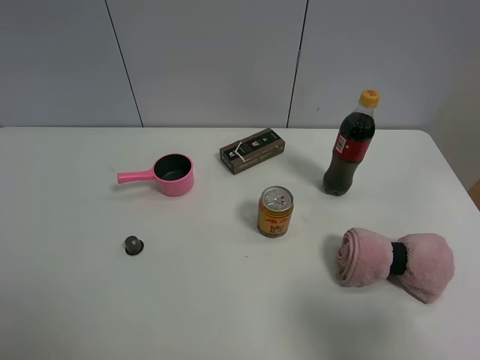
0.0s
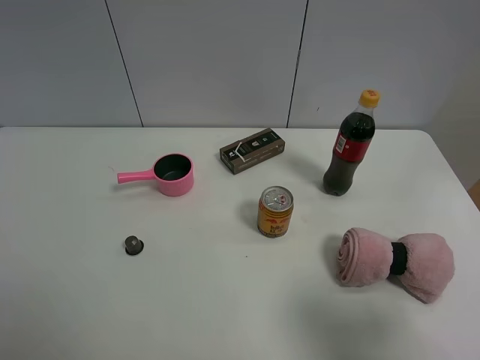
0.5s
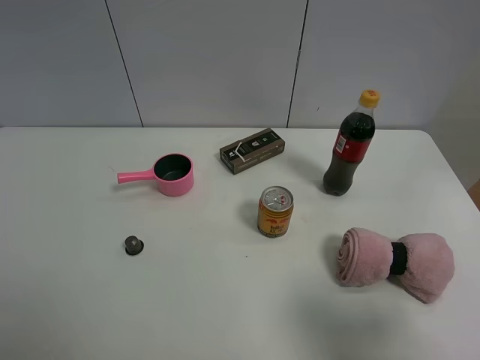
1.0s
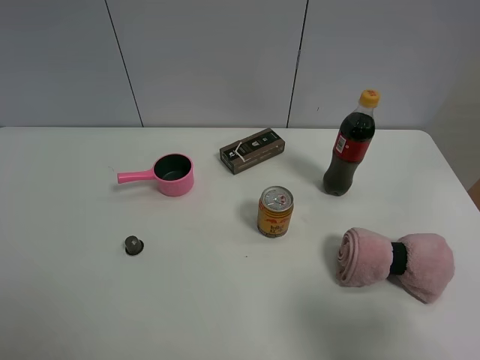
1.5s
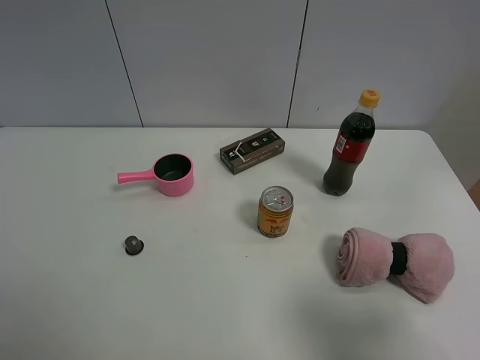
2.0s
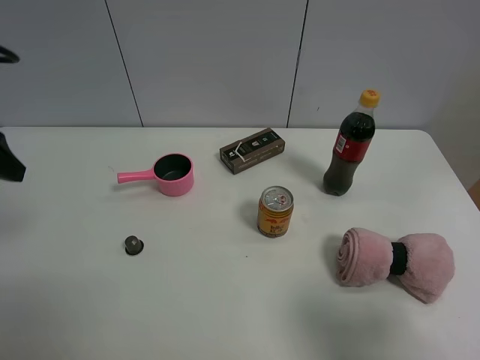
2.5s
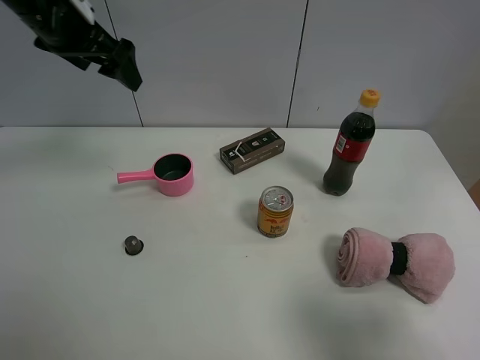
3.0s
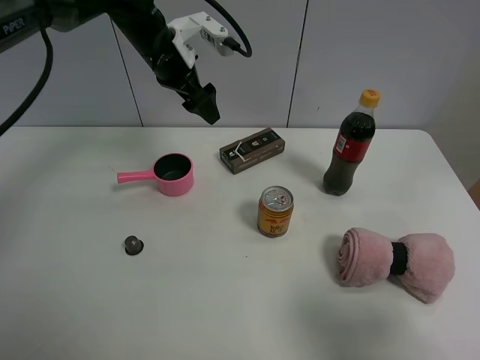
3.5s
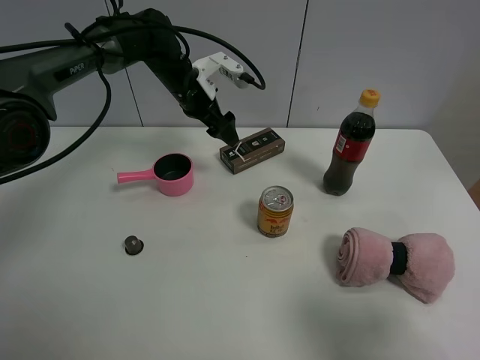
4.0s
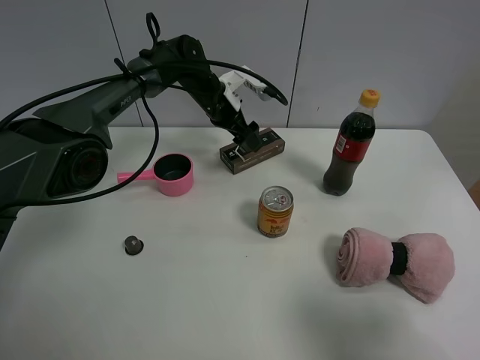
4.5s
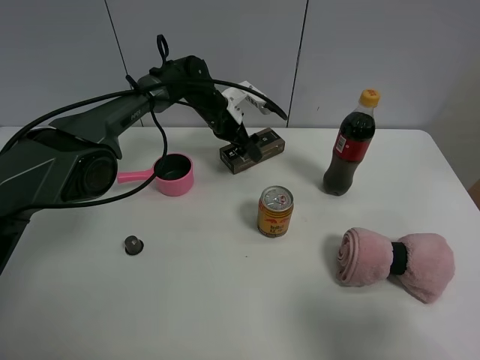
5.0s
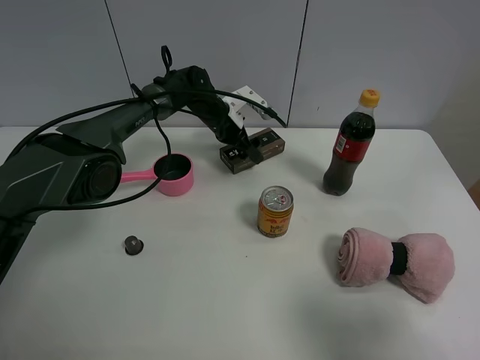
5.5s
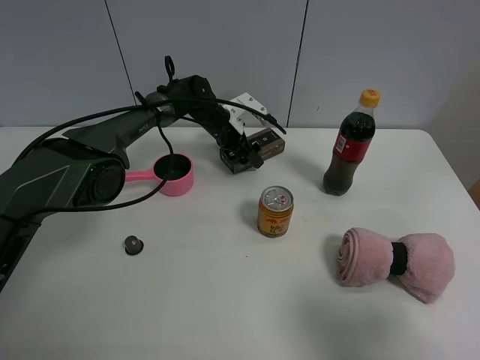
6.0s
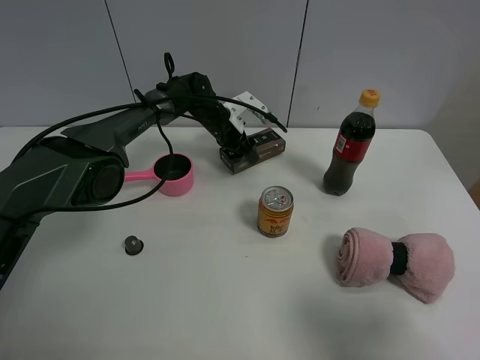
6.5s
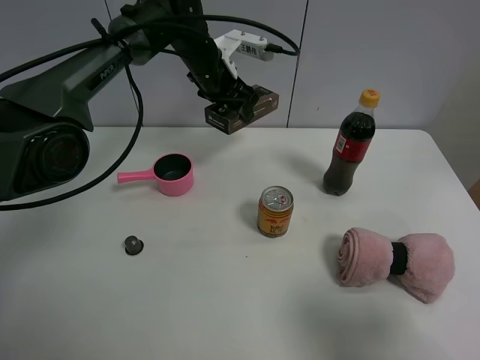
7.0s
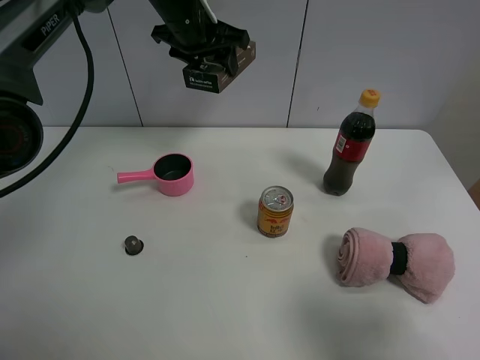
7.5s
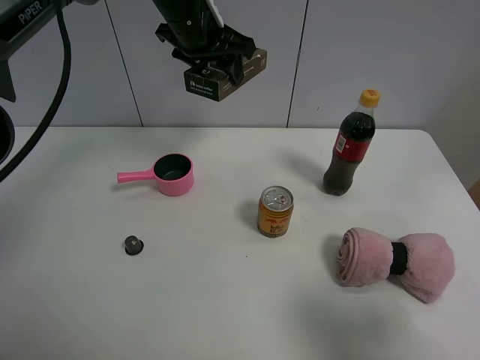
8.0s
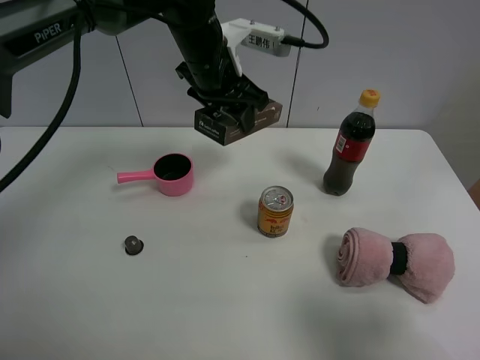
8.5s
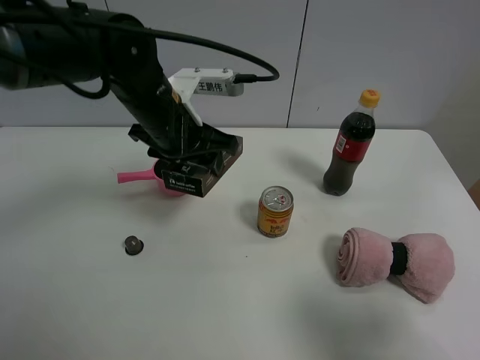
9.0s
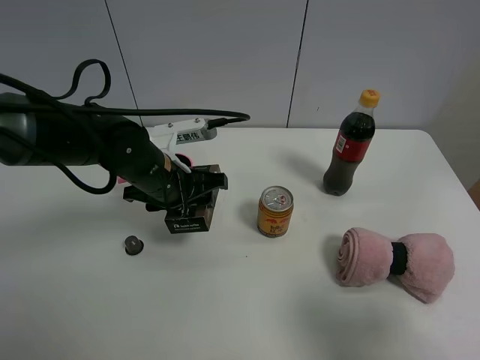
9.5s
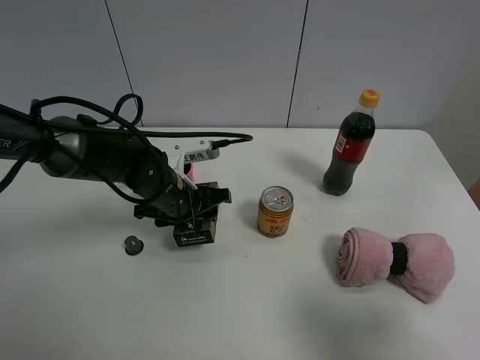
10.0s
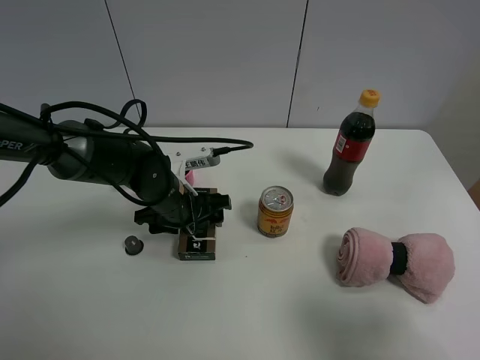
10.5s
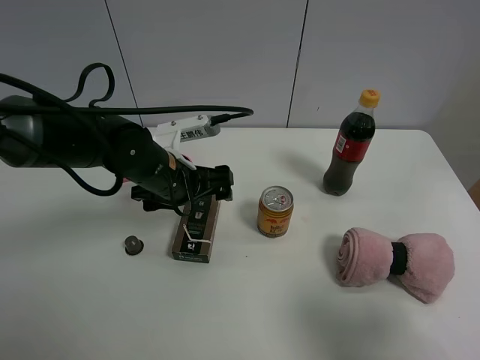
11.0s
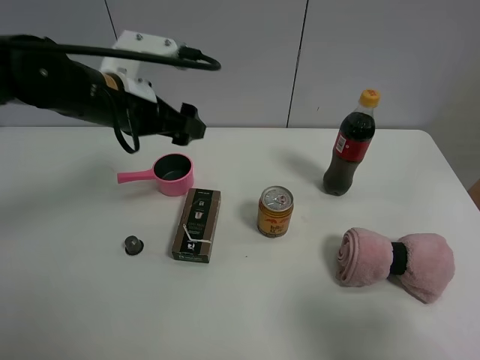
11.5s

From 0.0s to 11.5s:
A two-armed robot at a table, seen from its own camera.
Task of the whole recording: the gripper move the object.
Step, from 0.0s to 6.0s: Grasp the brown box with the left gripper.
Step, from 6.5s to 10.5s: Place the brown box on the table with the left gripper.
From 2.0s to 4.0s: The left gripper goes approximately 50 cm forward and to the right.
From 4.0s to 6.0s: The left gripper shifts some 10 cm downward.
From 6.0s to 7.5s: The left gripper heads upward, covering roughly 25 cm, and closes its fingers.
From 7.5s to 9.5s: The left gripper moves backward and downward, about 25 cm.
From 9.5s to 11.5s: The left gripper shifts approximately 10 cm upward, and opens its fingers.

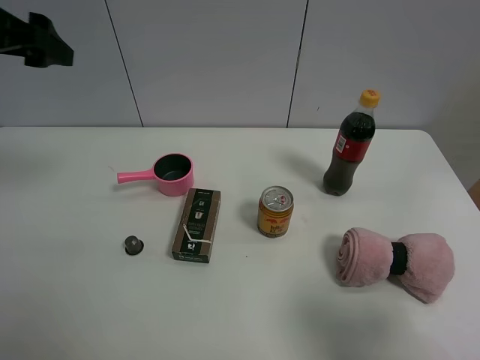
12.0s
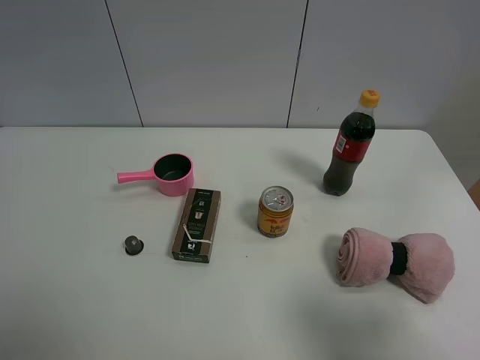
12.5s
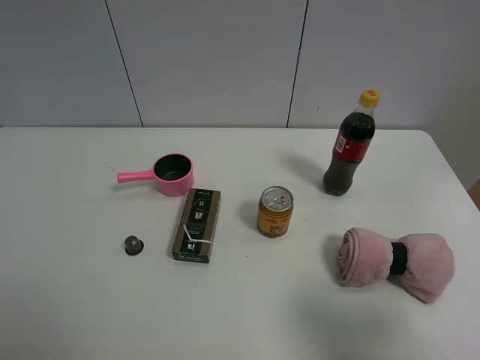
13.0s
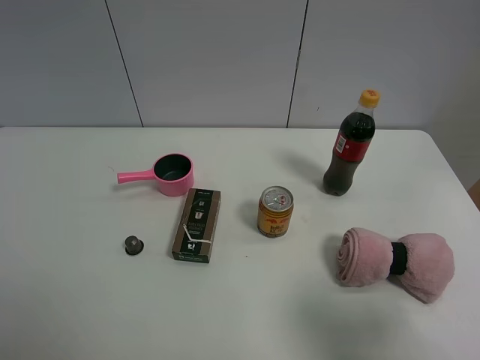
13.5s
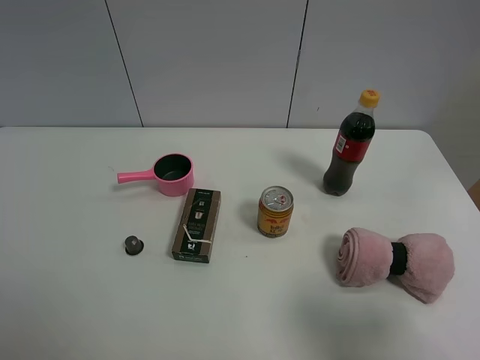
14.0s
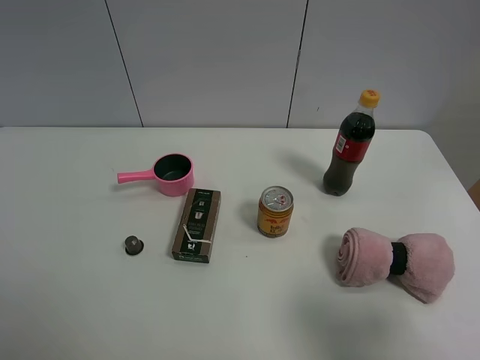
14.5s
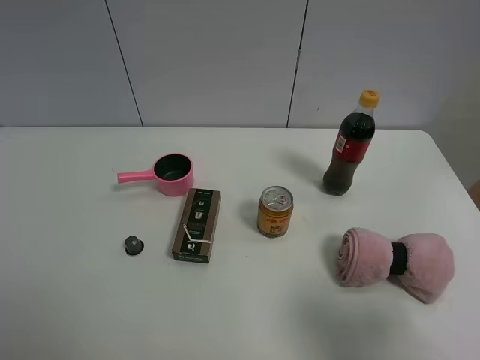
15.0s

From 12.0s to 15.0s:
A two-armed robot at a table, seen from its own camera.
Task of the whole recording: the gripper move the object.
From 12.0s to 13.5s: The left gripper is displaced backward by some 30 cm.

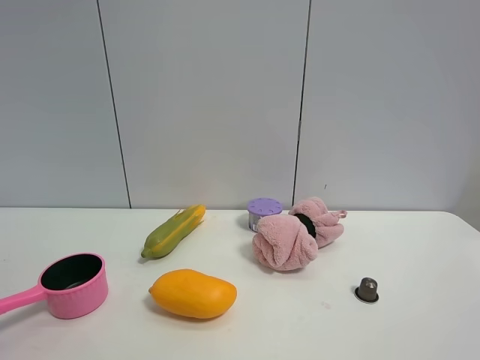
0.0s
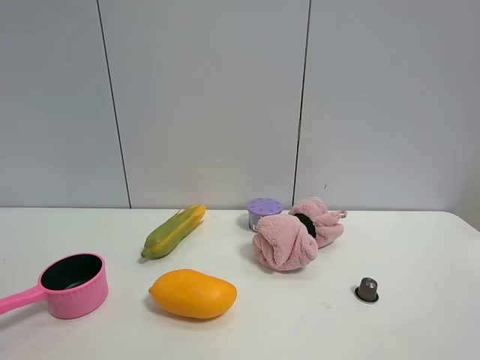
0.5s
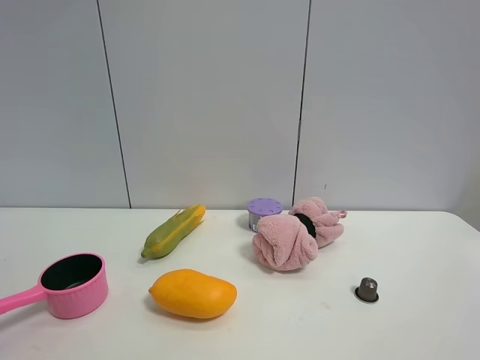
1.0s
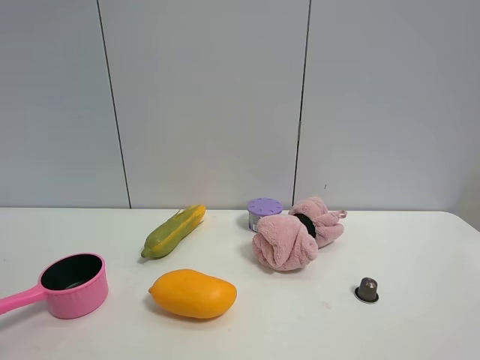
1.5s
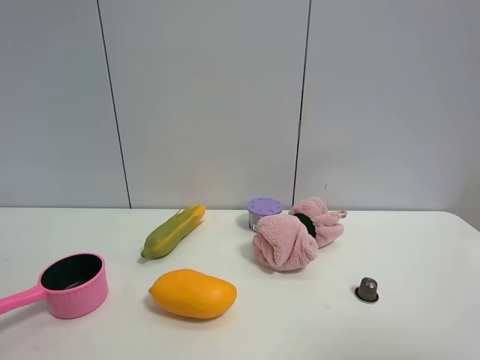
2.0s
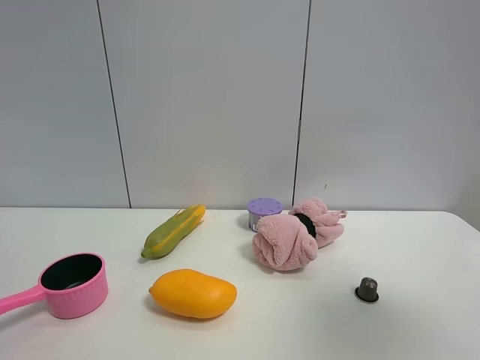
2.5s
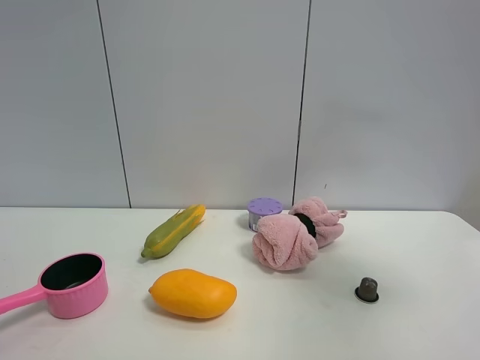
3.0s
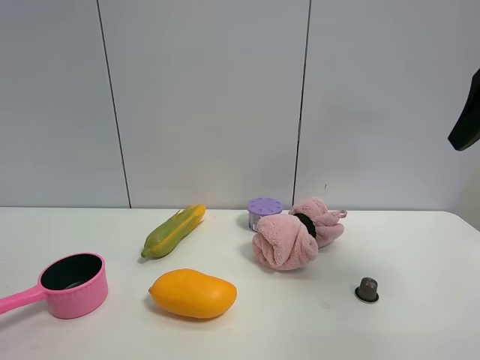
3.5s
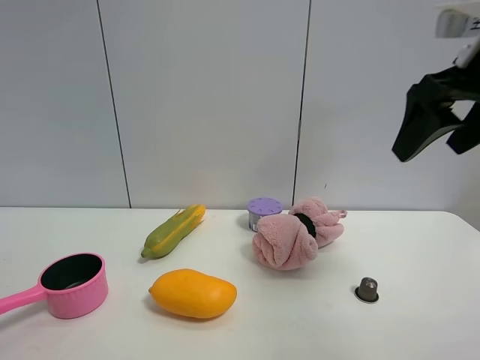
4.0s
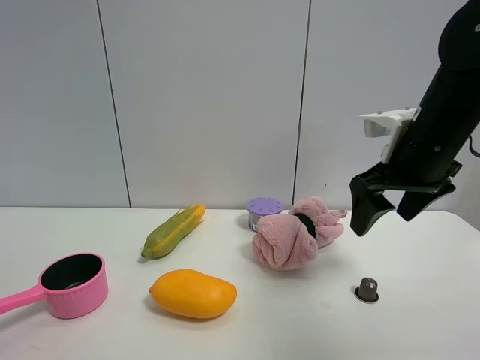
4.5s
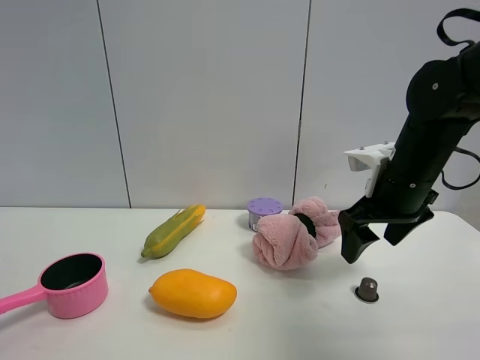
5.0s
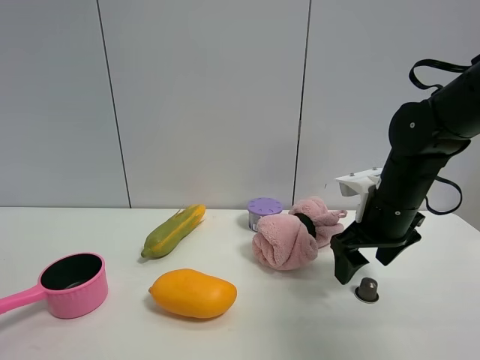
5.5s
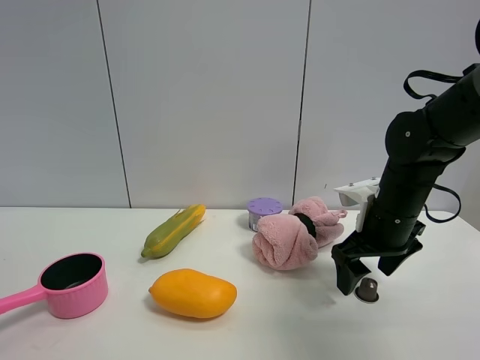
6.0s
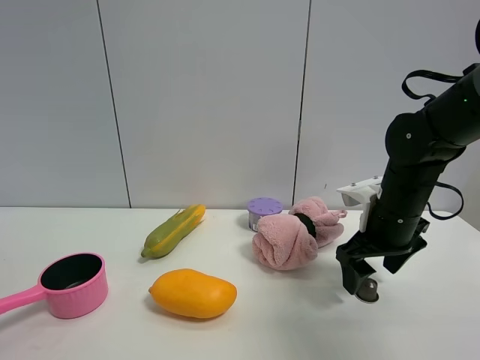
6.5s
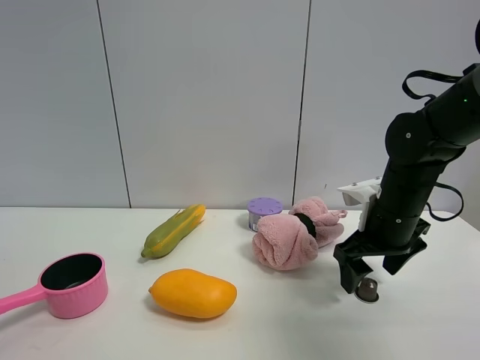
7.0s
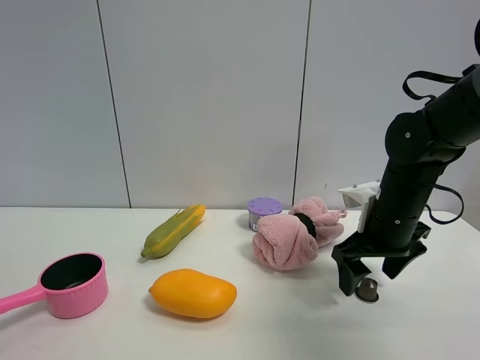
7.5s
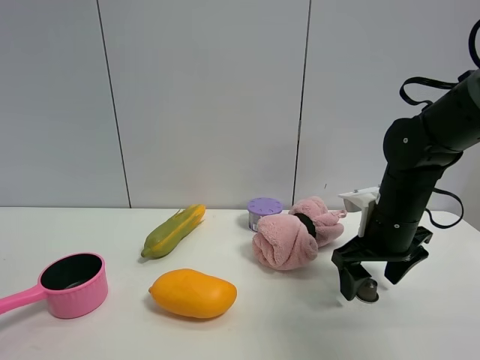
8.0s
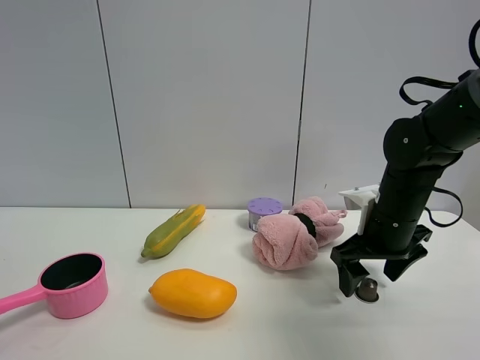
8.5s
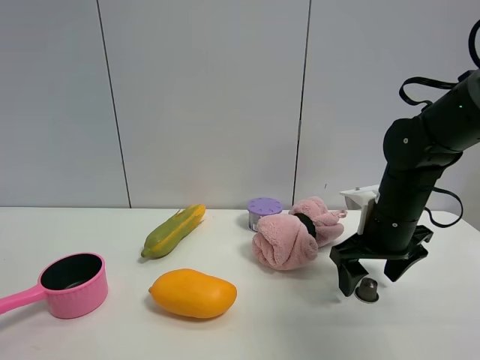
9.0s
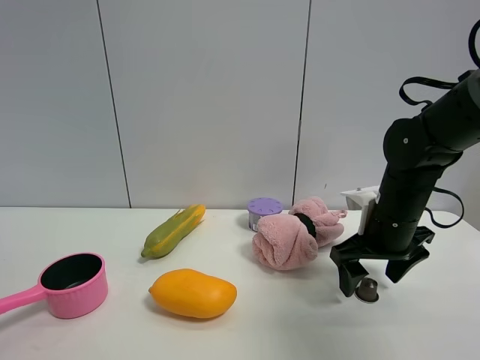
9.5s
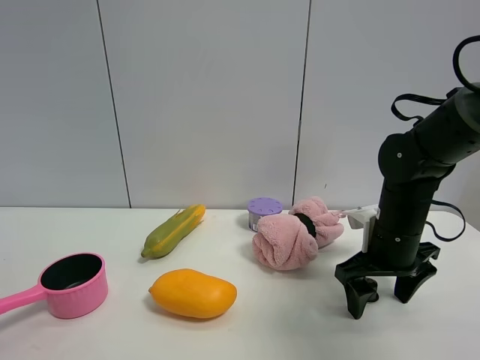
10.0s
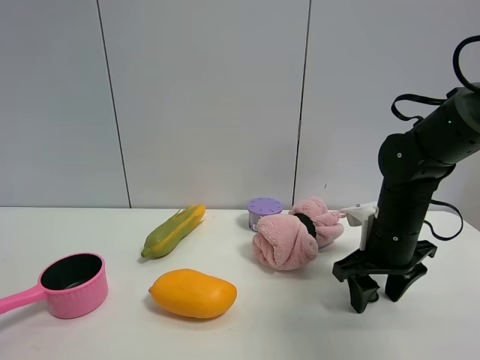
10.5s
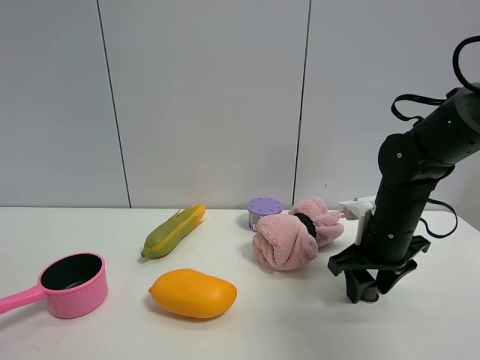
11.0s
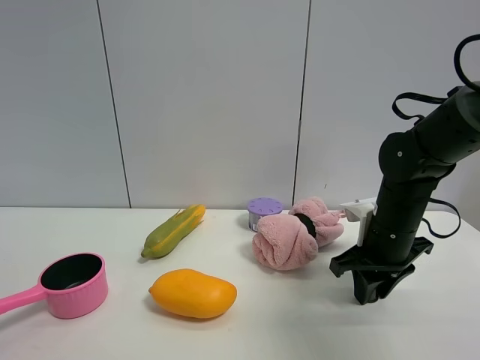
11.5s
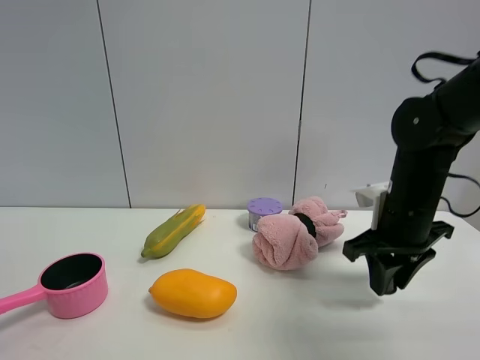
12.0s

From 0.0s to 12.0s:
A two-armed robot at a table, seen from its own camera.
Task of the whole recording: the gripper move the object.
Step, from 0.0s to 11.5s: Grasp the coffee capsule with the right gripper.
From 2.0s to 4.0s: The right gripper is displaced forward by about 25 cm.
From 4.0s to 6.0s: The right gripper moves downward and forward, about 20 cm.
From 6.0s to 10.0s: The grippers make only small movements.
From 10.0s to 12.0s: The right gripper goes about 5 cm upward, and closes its fingers.
